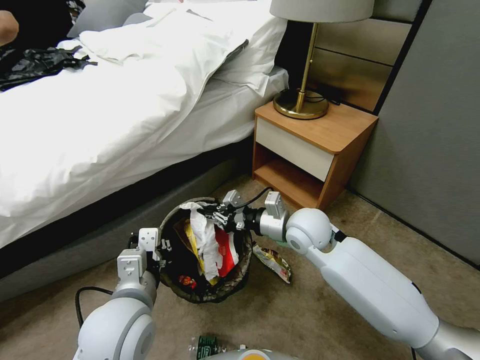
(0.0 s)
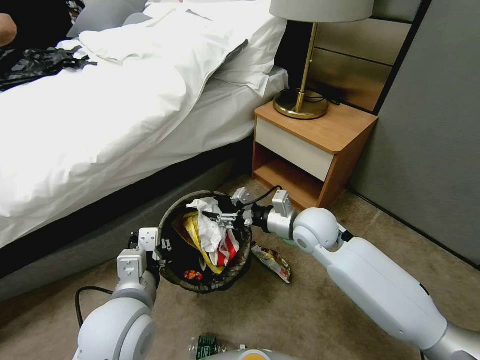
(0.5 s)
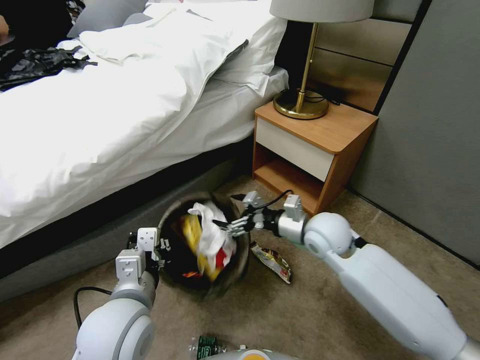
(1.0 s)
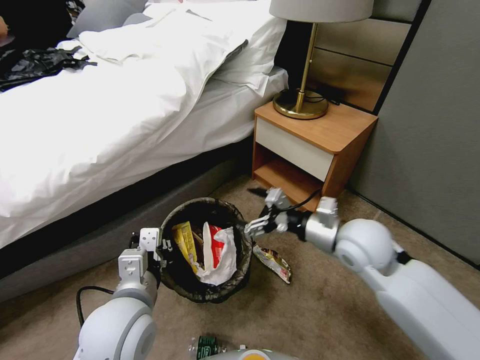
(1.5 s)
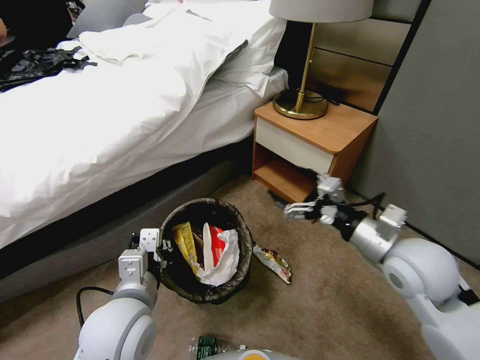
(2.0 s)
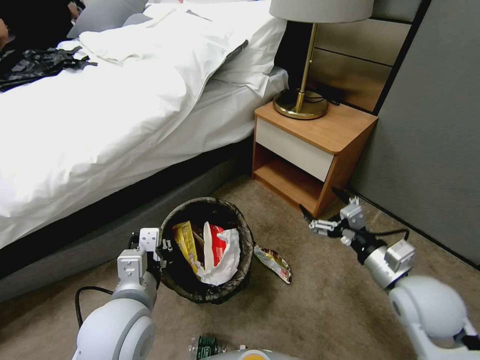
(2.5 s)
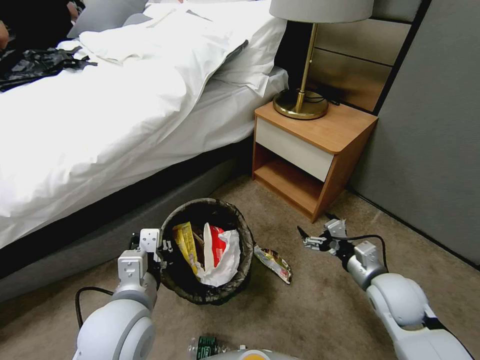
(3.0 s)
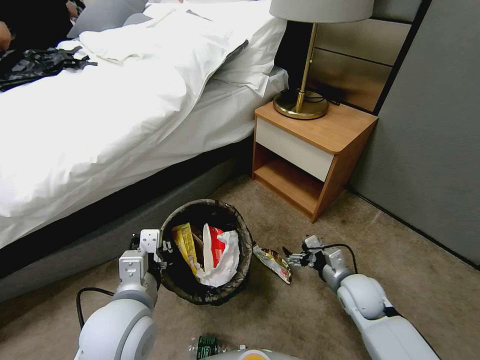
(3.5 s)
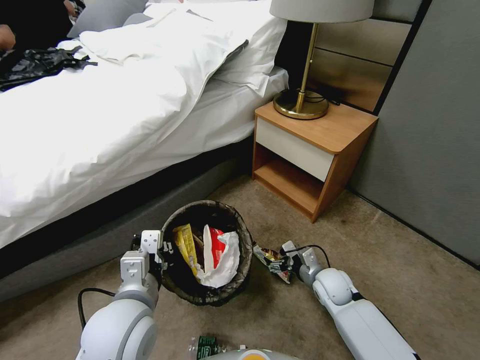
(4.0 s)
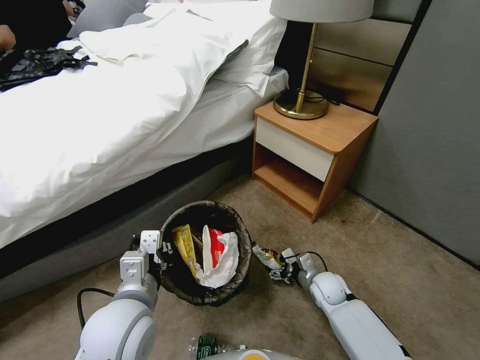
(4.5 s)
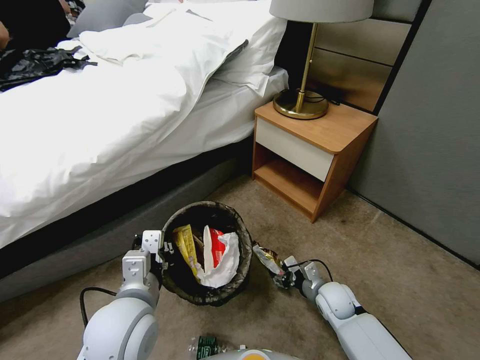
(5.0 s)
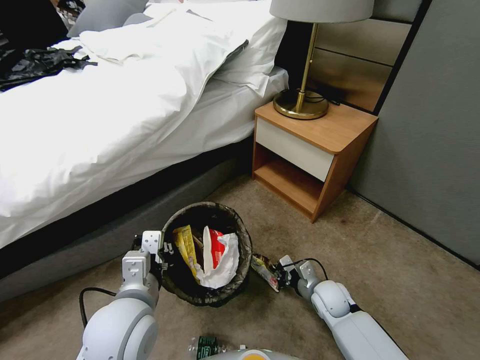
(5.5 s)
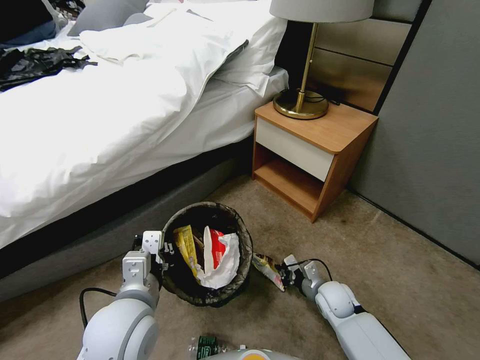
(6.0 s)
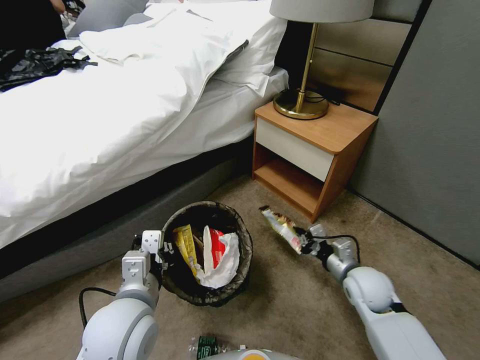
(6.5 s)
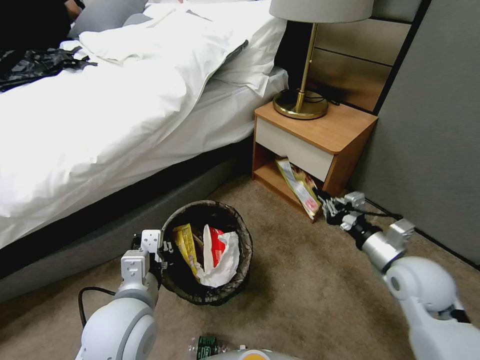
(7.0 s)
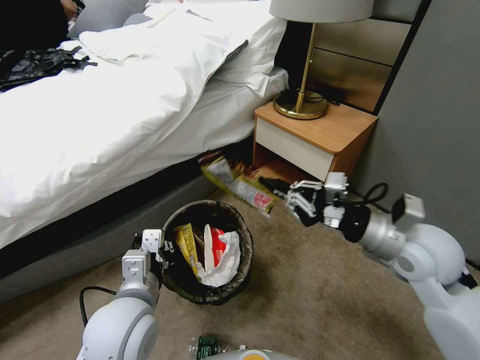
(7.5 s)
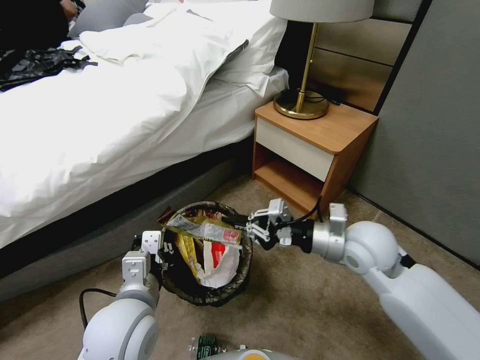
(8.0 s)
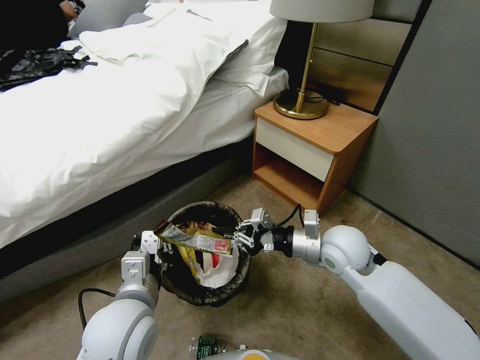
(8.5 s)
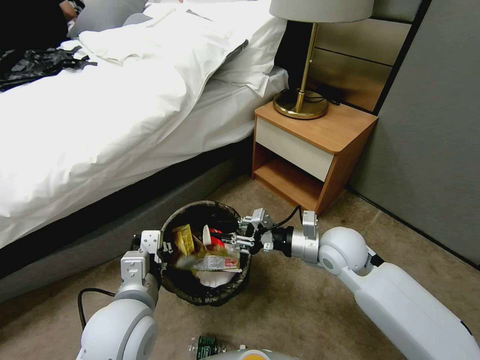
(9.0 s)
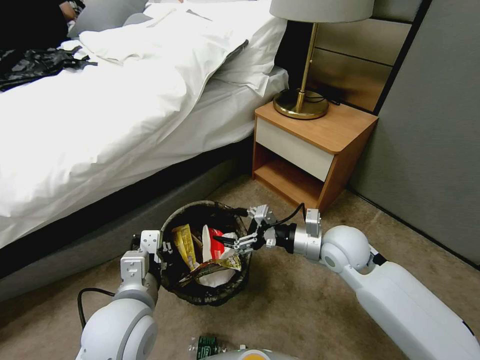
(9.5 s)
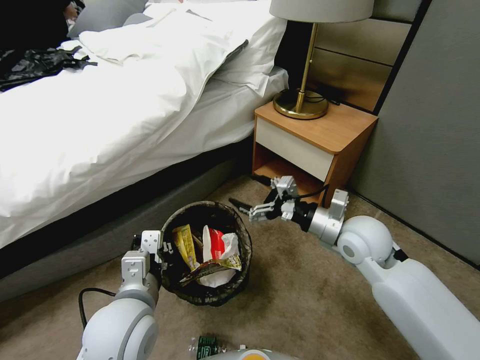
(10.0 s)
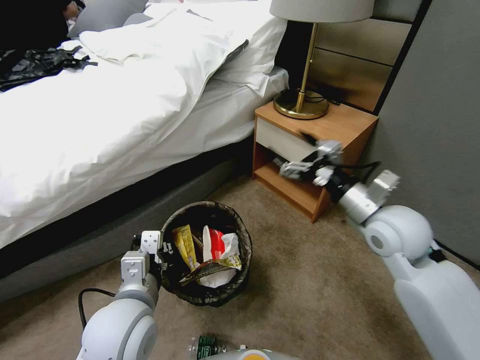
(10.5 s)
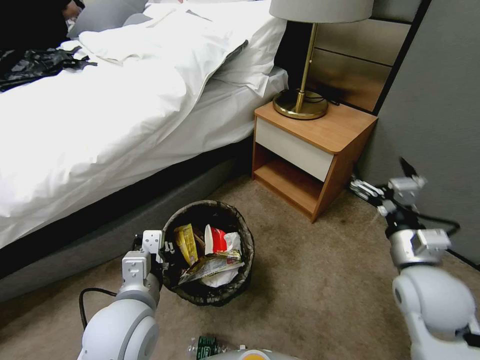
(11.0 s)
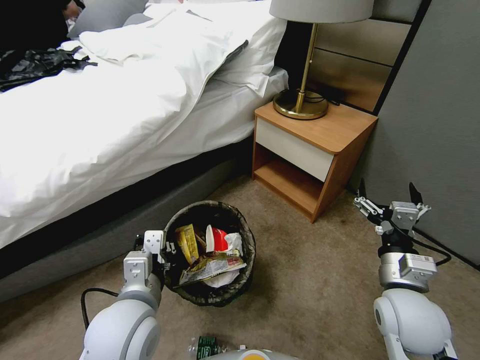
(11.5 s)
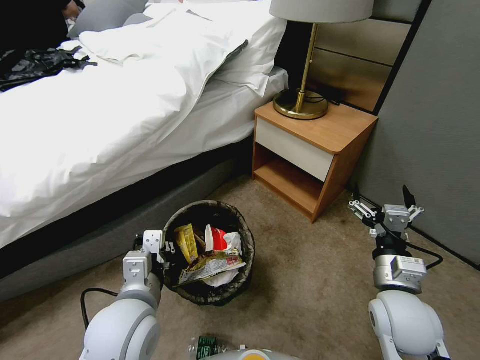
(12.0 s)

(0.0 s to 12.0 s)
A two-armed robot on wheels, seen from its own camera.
Task of the whole recording: Pick up the trash bin, then pick up the garbage from the floor and place it into the trash bin.
0.0 s - 2.0 s: The right gripper goes some 20 cm to the right, backward and upward, and opens its fingers.
2.0 s - 4.0 s: The right gripper heads downward, covering about 30 cm.
4.0 s - 6.0 s: The right gripper closes its fingers.
6.0 s - 8.0 s: The right gripper travels upward by some 30 cm.
8.0 s - 10.0 s: The right gripper opens.
10.0 s - 12.0 s: The right gripper moves backward and downward, about 15 cm.

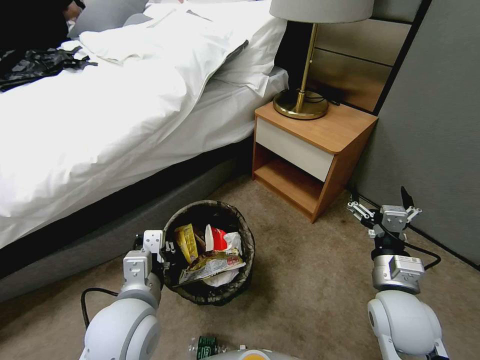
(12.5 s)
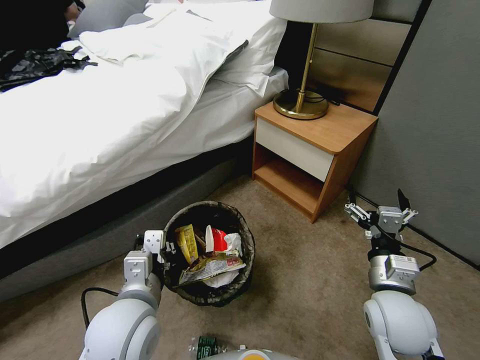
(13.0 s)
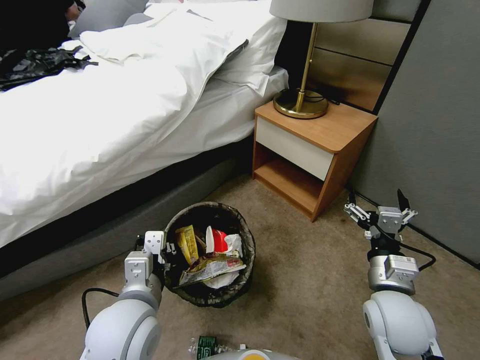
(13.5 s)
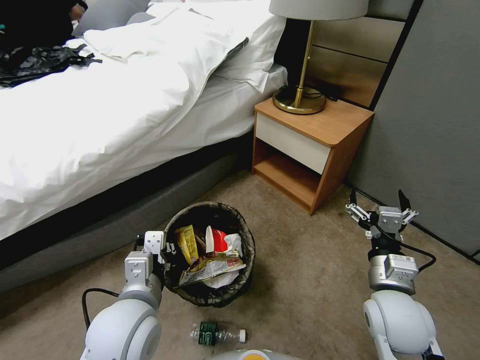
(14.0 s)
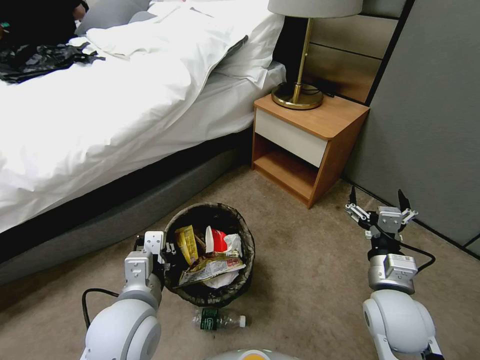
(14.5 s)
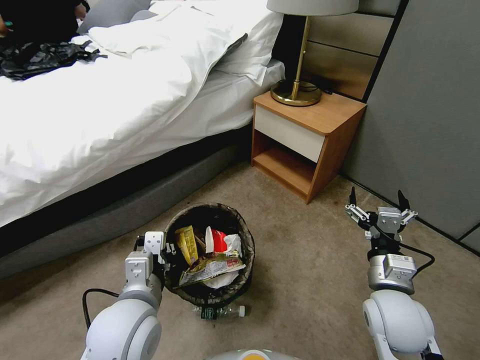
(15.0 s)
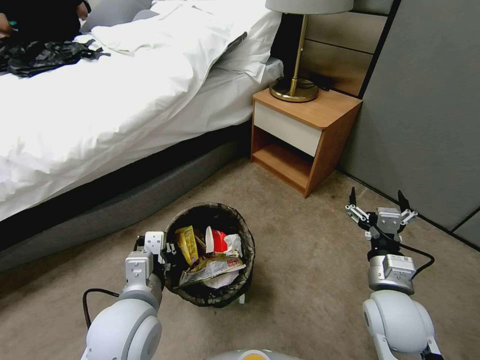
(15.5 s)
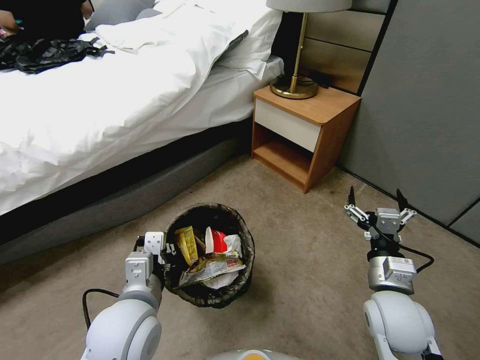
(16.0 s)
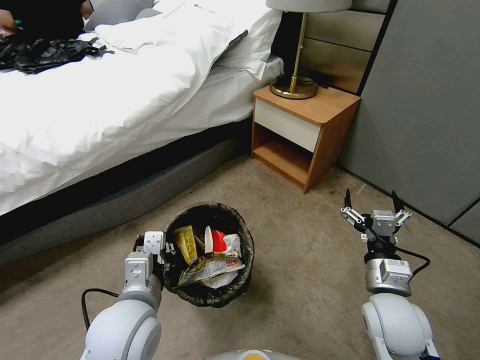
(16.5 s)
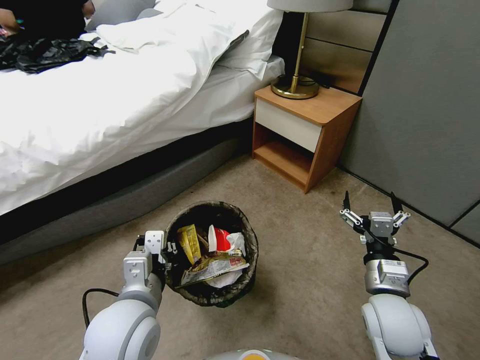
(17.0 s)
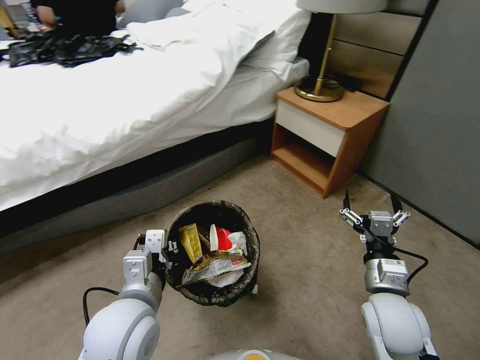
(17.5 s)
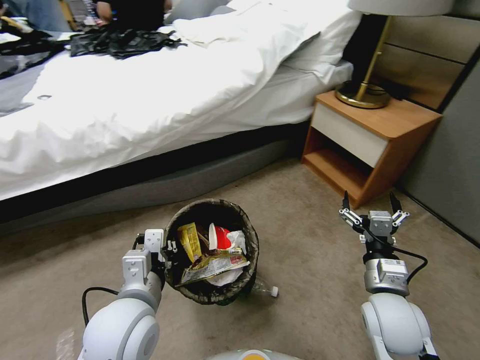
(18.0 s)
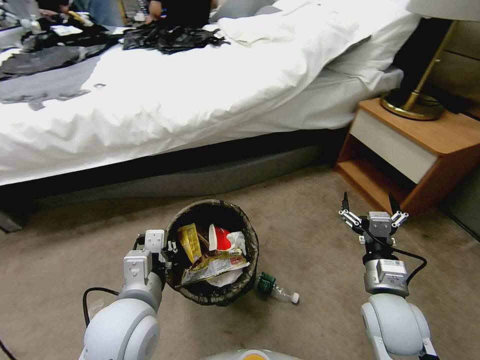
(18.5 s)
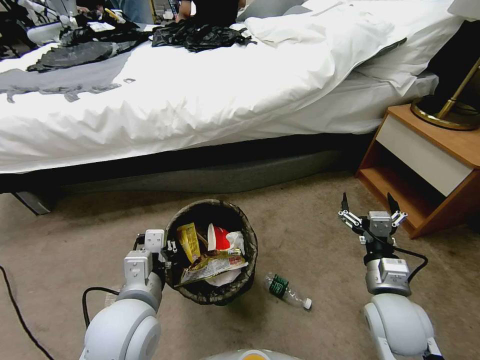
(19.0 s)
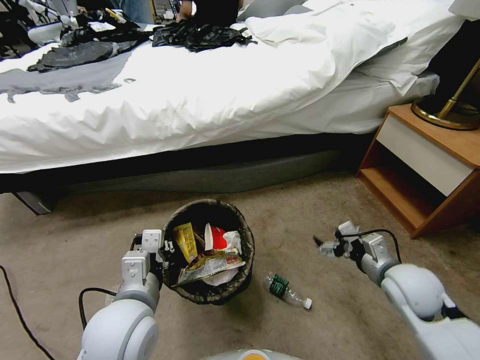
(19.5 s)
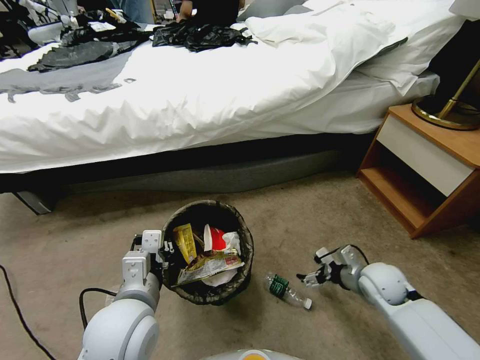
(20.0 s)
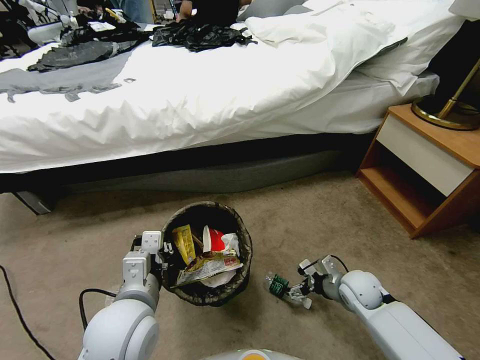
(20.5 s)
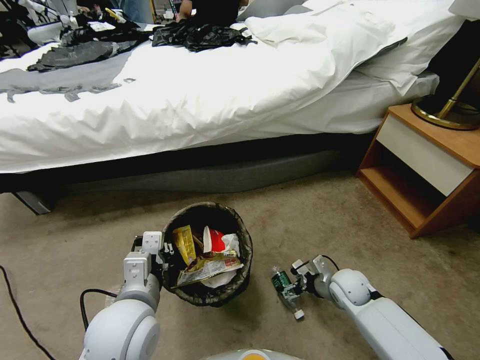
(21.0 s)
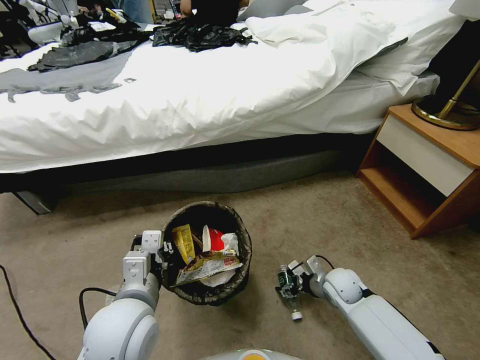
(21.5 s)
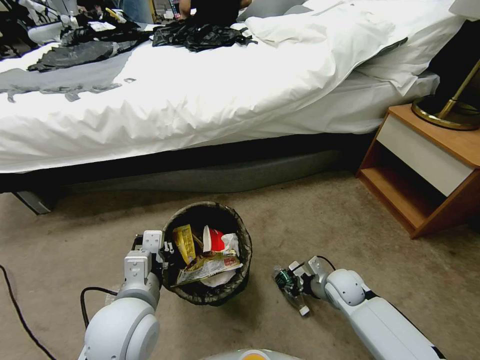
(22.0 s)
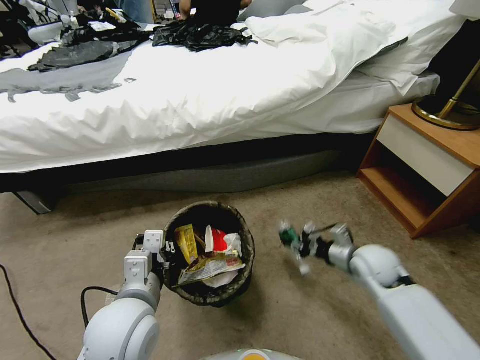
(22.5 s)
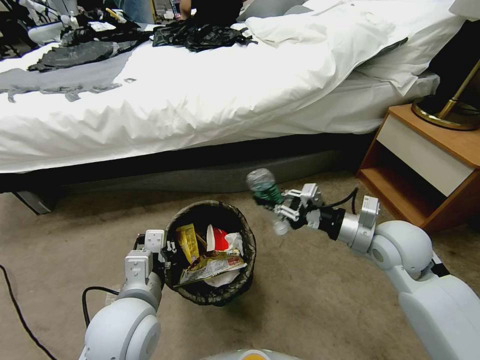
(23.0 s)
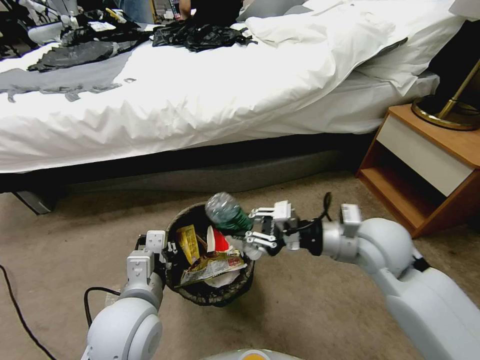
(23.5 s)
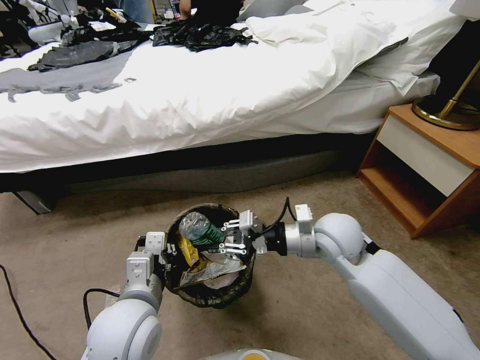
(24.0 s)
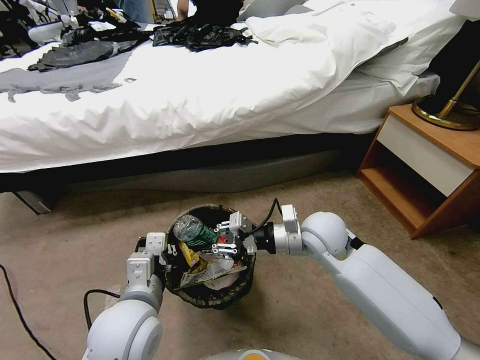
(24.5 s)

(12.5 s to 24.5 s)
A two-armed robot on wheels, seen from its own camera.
Task of the whole recording: Pick up the trash bin, then pick up the garbage from the floor and place it into the trash bin.
18.5 s - 20.5 s: The right gripper shifts roughly 15 cm downward and forward.
20.5 s - 22.5 s: The right gripper moves upward, approximately 5 cm, and closes its fingers.
22.5 s - 24.5 s: The right gripper shifts some 20 cm upward and to the left.

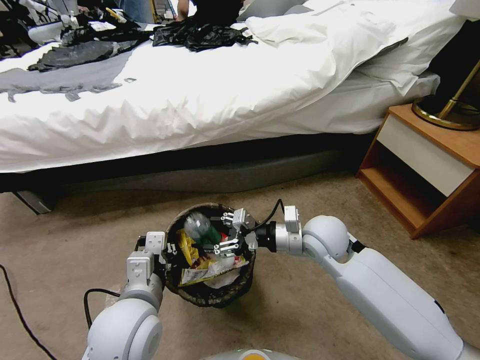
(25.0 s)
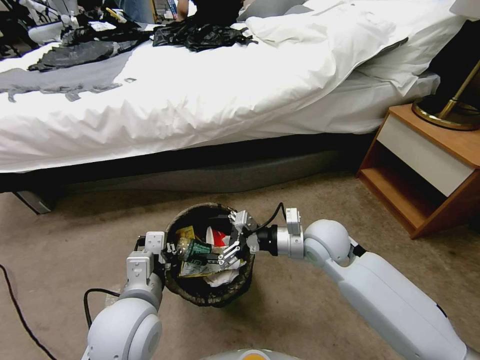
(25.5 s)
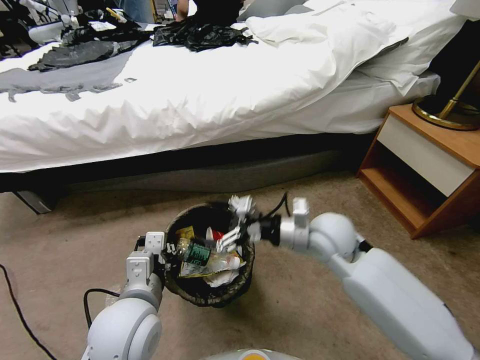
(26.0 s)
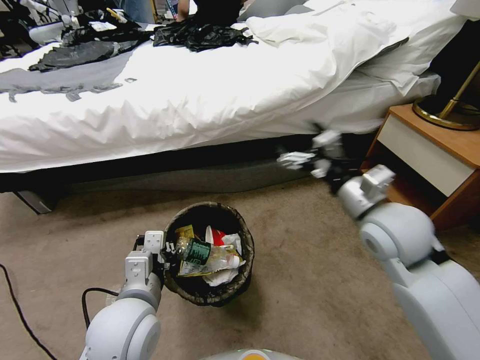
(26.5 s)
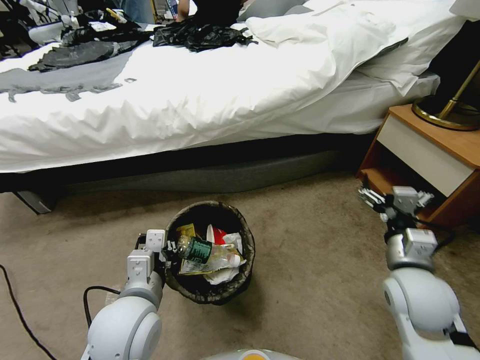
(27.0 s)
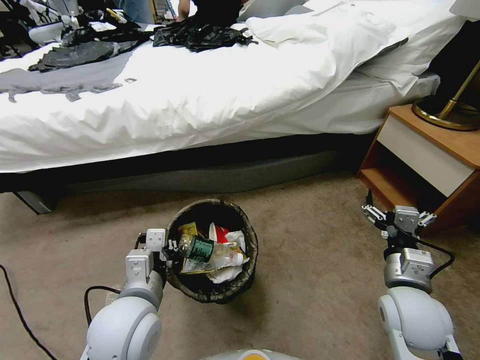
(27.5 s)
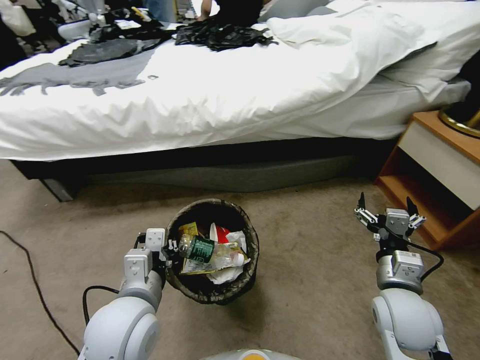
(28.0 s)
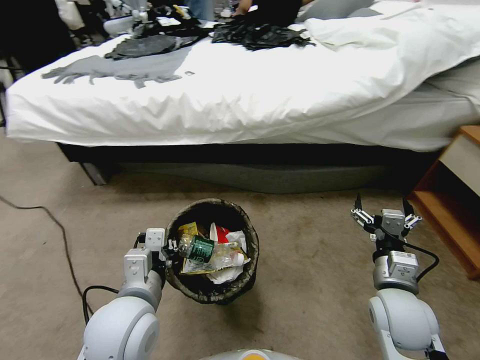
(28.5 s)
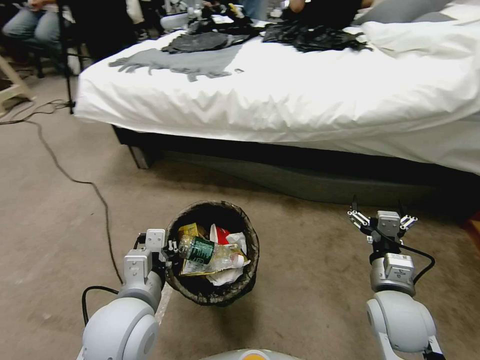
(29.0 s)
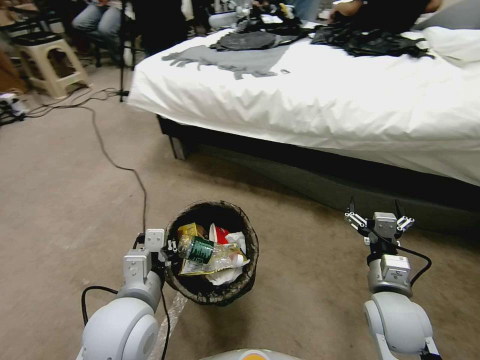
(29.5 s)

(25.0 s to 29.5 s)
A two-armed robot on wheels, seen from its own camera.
Task of the whole recording: Pick up the trash bin, then pick up the garbage from the floor and place it into the trash bin.
25.0 s - 27.0 s: The right gripper goes roughly 20 cm to the right and backward, and opens.
27.0 s - 29.5 s: The right gripper shifts about 5 cm downward.
